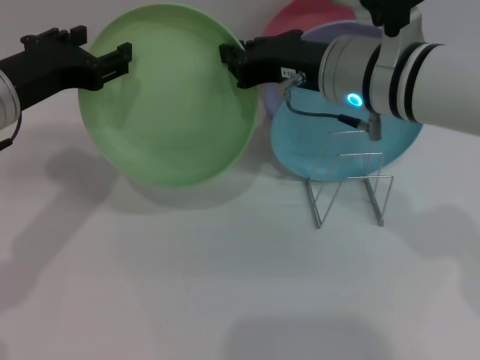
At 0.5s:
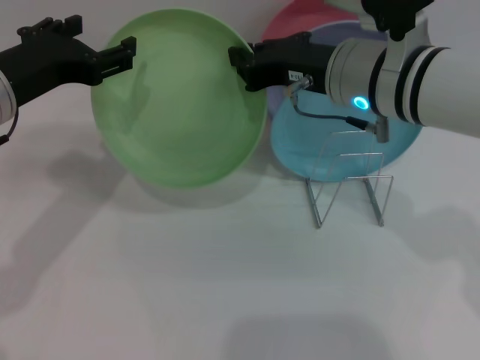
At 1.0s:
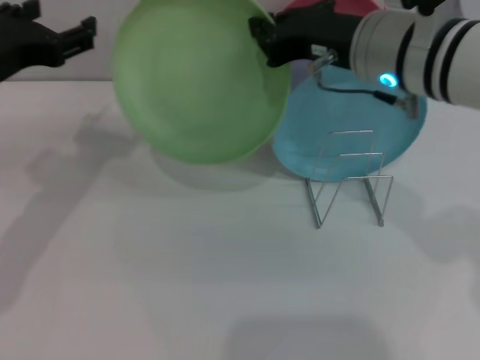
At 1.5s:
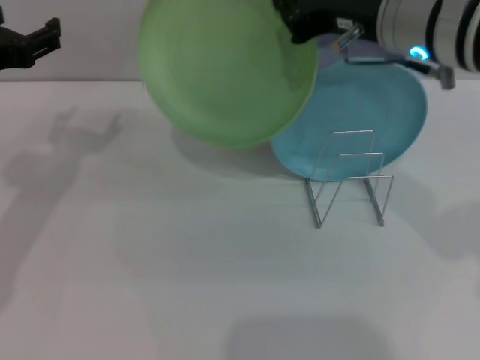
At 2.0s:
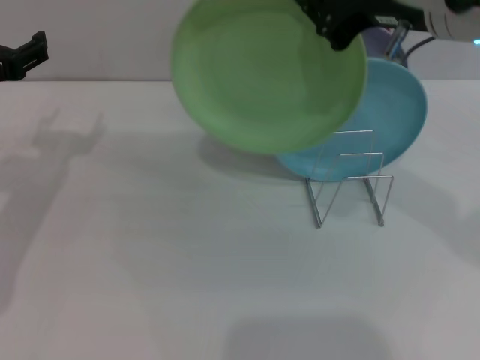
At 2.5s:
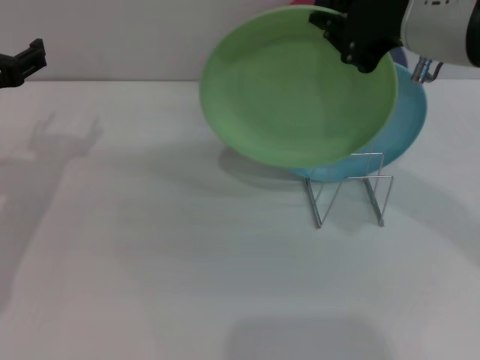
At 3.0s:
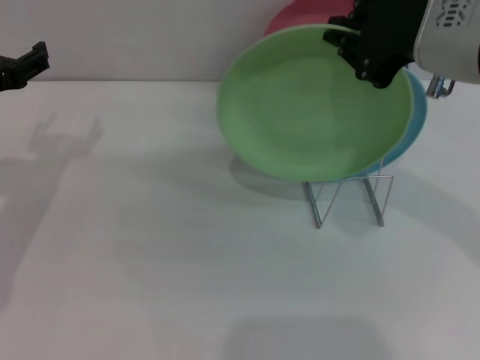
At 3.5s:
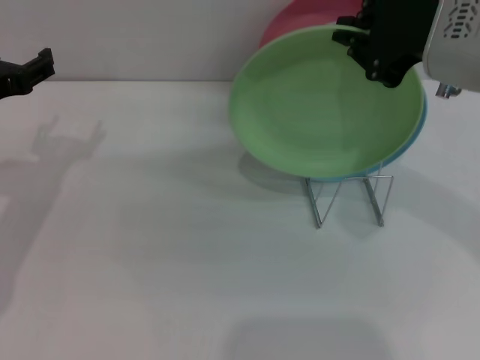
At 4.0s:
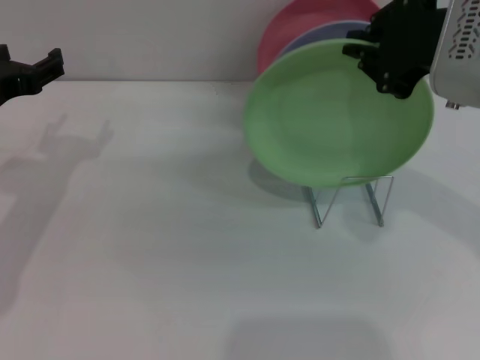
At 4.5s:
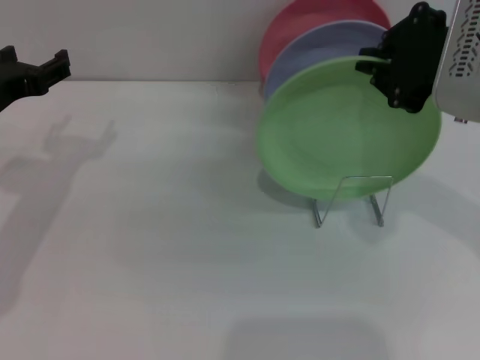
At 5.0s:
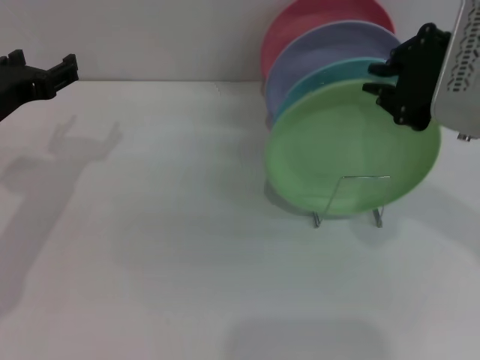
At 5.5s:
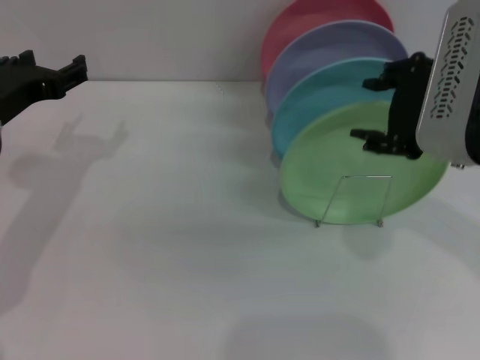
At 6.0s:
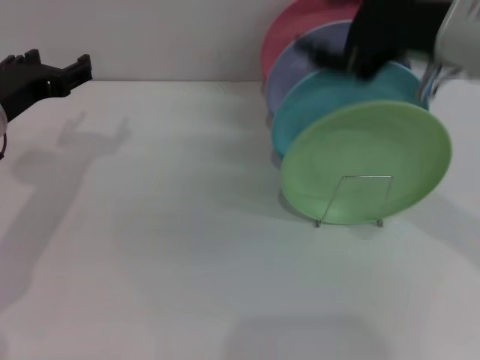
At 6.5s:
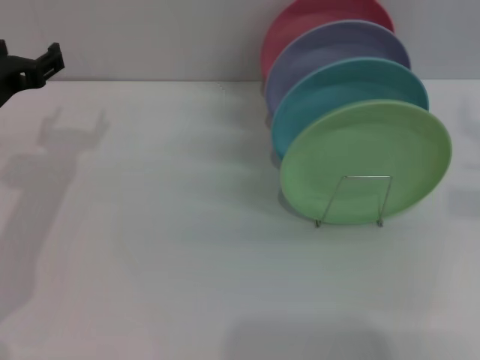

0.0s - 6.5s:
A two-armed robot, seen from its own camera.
Task of the whole recording: Grip the plate with one hand, pass it to the other, then set it on the shelf.
Step, 1.5s - 5.0s: Place the plate on the shelf with the right gripper.
0.0s - 2.0s: The left gripper is displaced to the left by roughly 5 cm, and opens its fingers; the right gripper moves upward, about 10 cm.
2.0s - 4.5s: The right gripper changes place by some 5 cm.
4.5s - 6.5s: The right gripper moves to the right and downward, approximately 10 cm, and opens.
